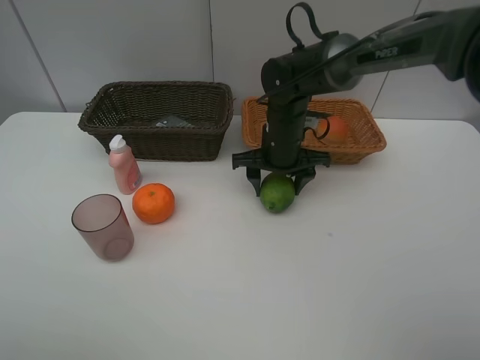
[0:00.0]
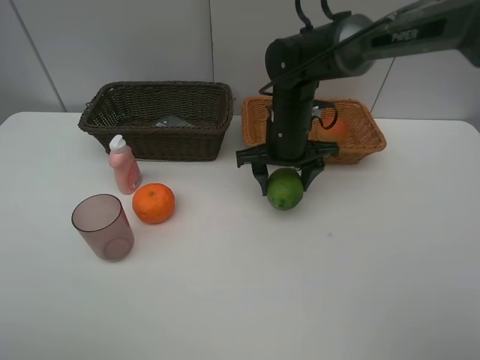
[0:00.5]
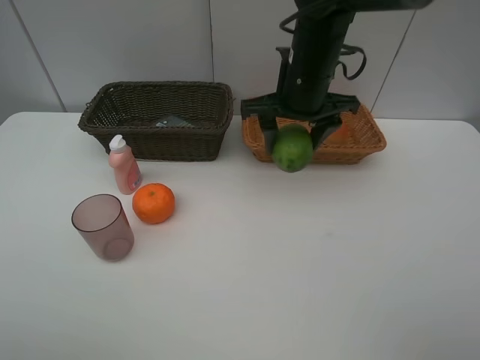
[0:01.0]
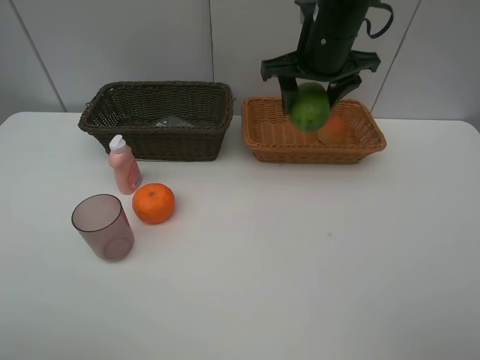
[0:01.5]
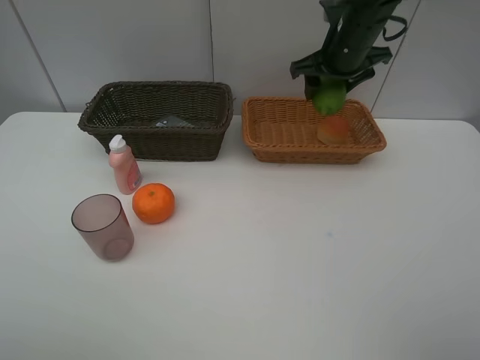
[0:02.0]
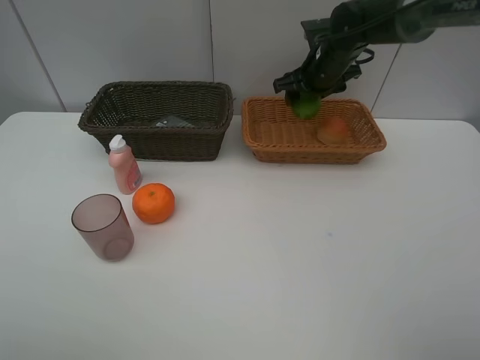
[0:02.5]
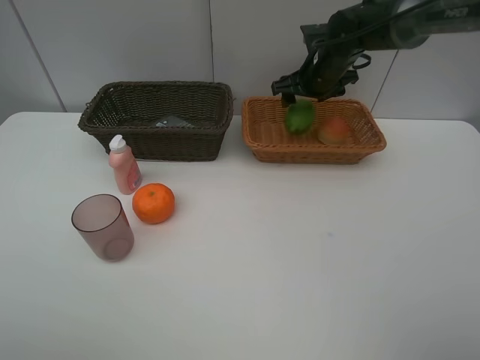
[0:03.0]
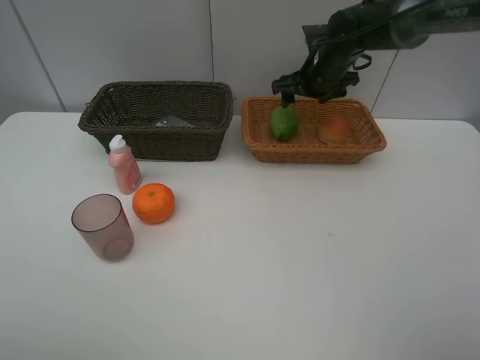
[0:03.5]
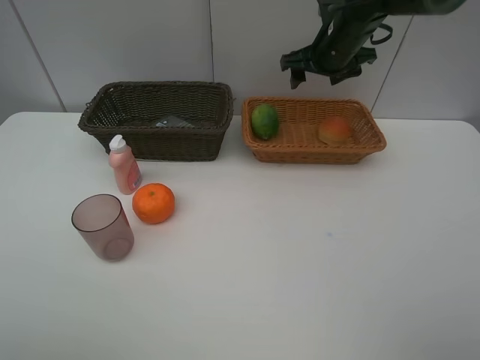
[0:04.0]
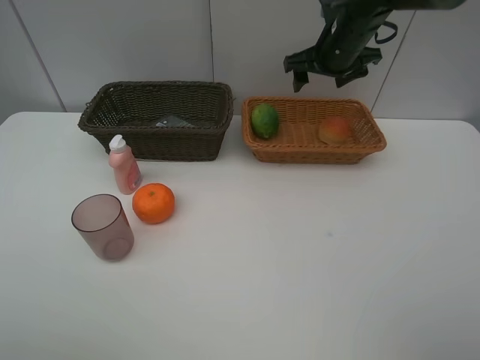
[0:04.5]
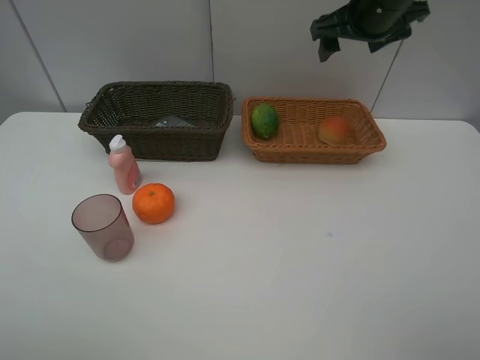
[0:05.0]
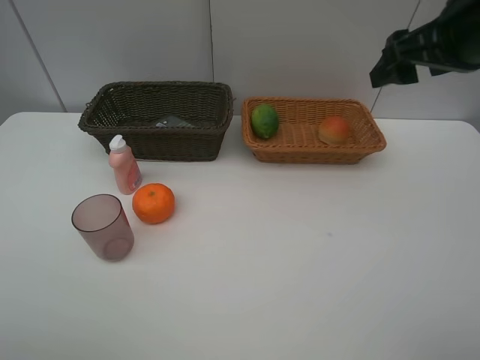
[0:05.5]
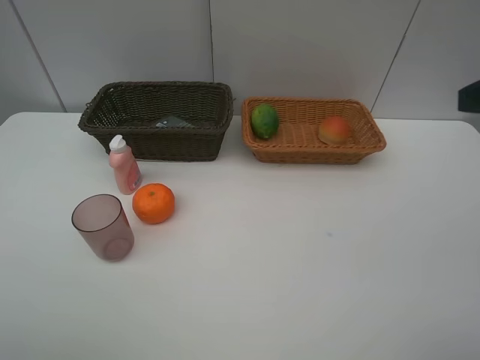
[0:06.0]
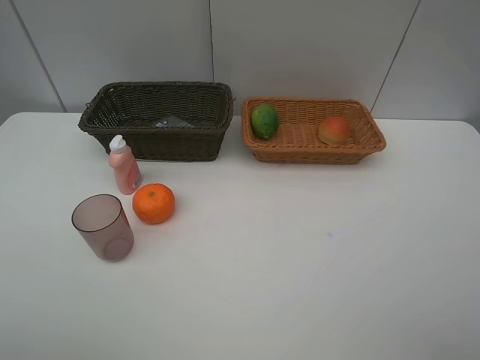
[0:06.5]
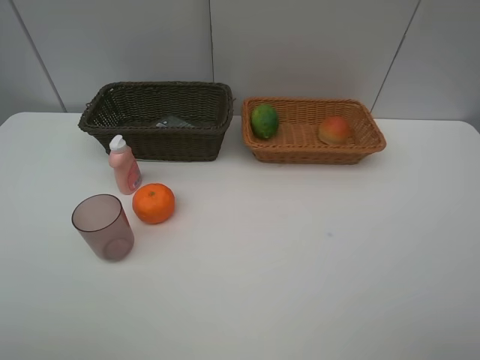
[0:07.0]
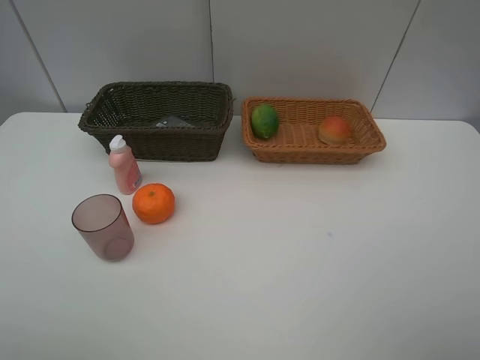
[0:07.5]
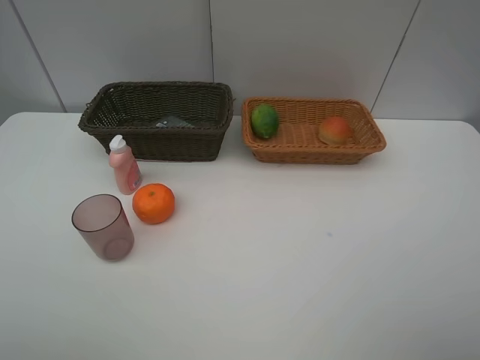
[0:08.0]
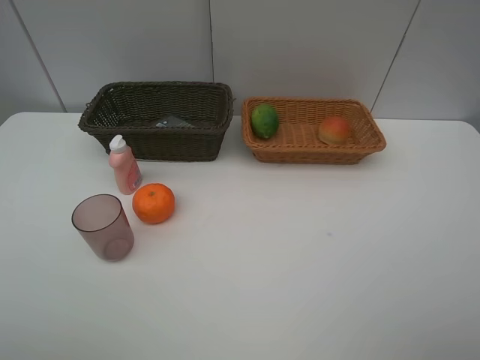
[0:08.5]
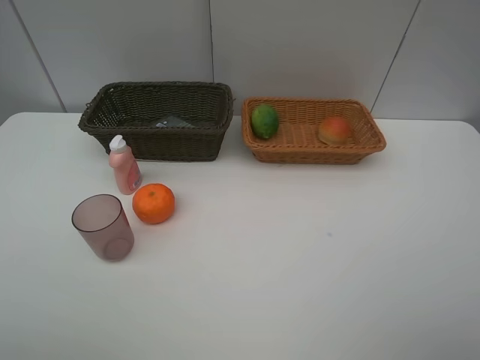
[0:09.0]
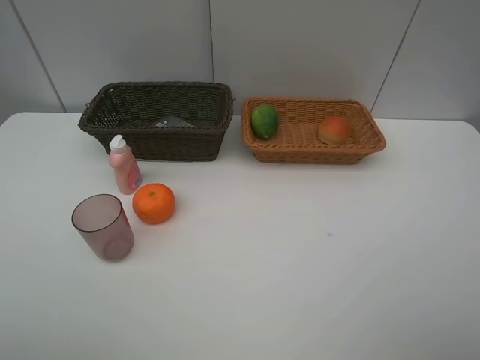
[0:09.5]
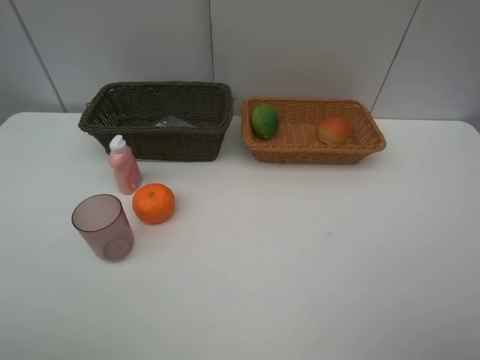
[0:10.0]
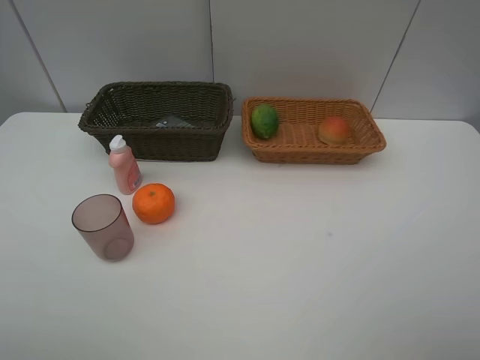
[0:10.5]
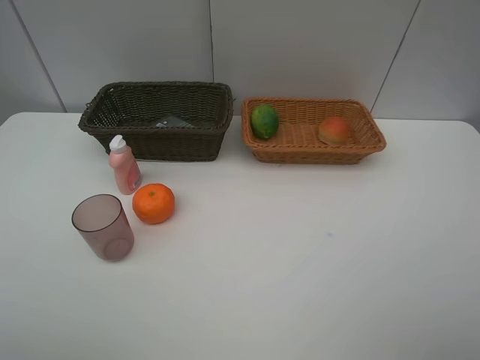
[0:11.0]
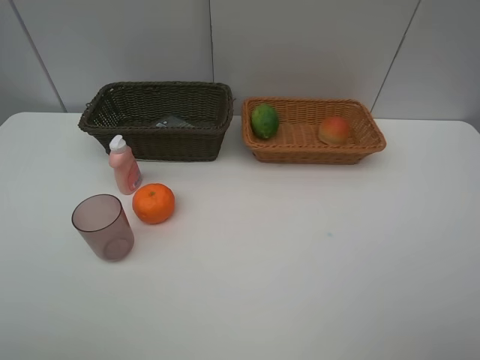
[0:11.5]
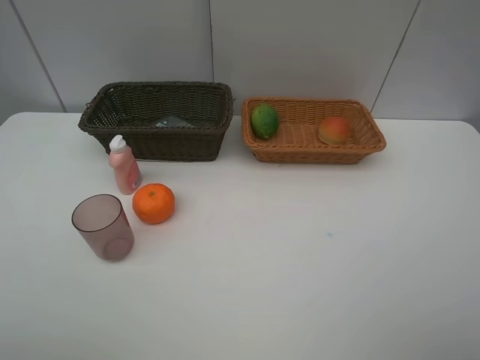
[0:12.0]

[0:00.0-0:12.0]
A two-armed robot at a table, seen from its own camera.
Task of the whole recording: place multiple objects separately in different baskets.
0:00.0 to 0:02.0: The right gripper travels upward, to the right and forward by some 15 cm.
0:04.0 to 0:06.0: The right gripper is displaced backward by about 30 cm.
0:10.0 to 0:12.0: Both grippers stay about where they are.

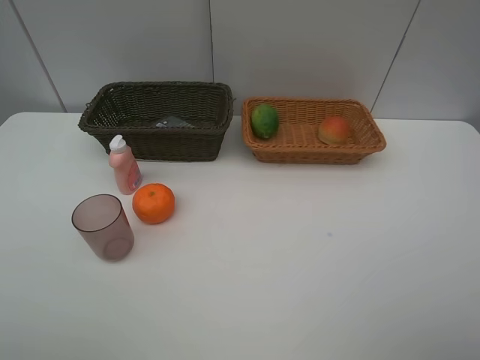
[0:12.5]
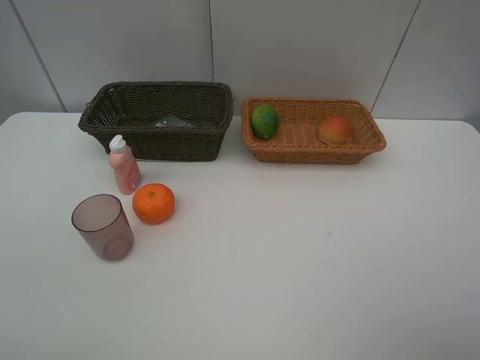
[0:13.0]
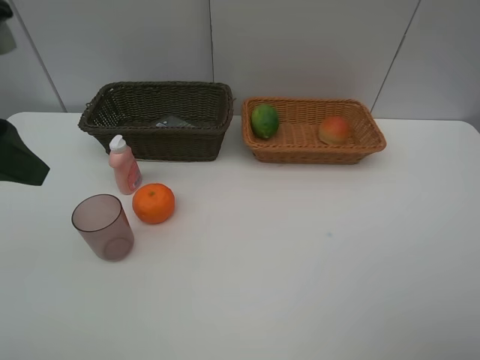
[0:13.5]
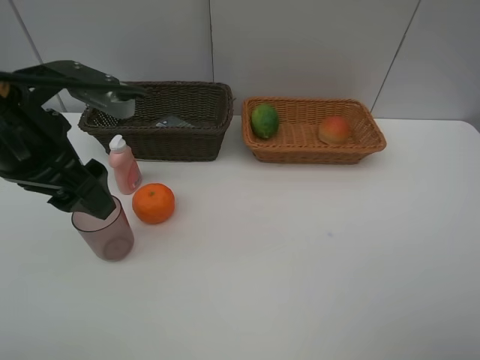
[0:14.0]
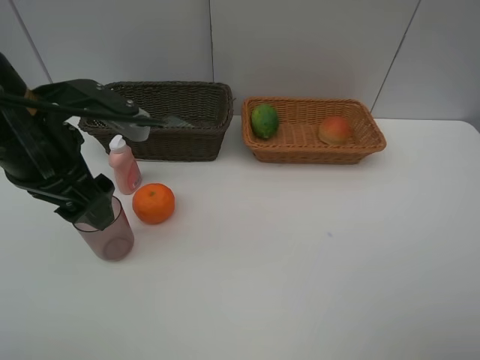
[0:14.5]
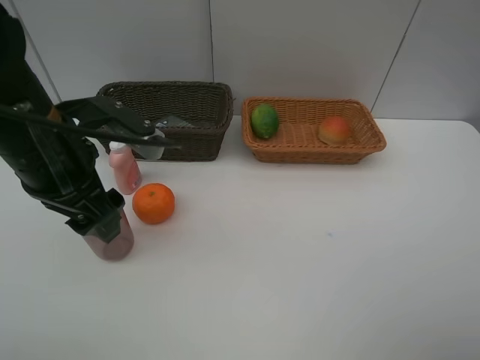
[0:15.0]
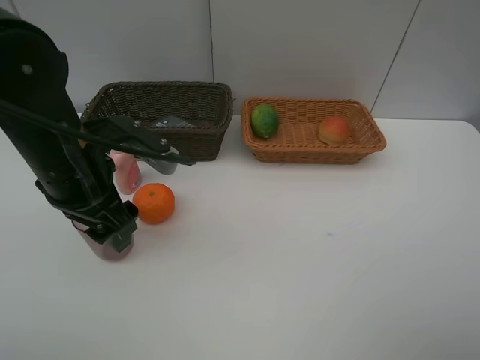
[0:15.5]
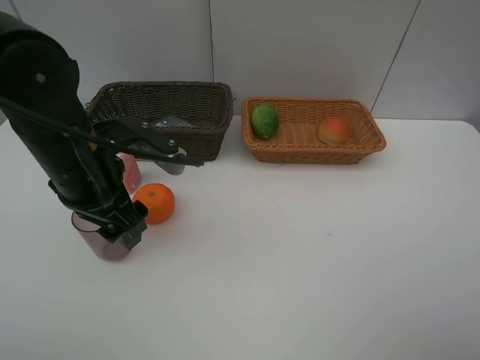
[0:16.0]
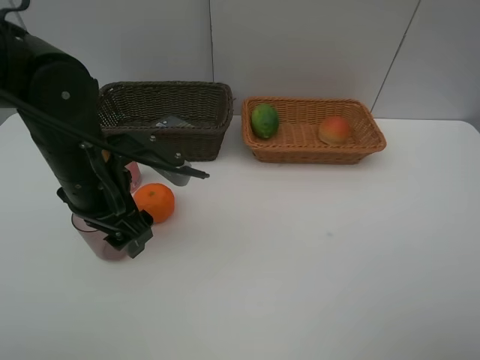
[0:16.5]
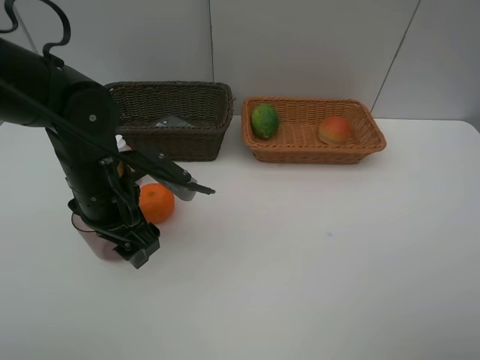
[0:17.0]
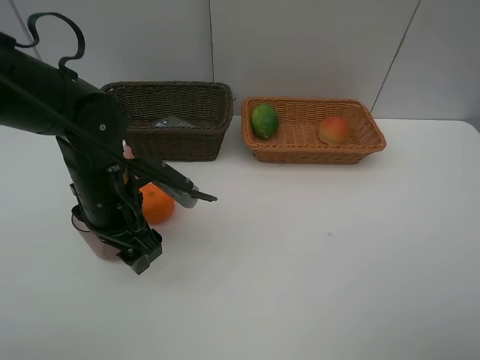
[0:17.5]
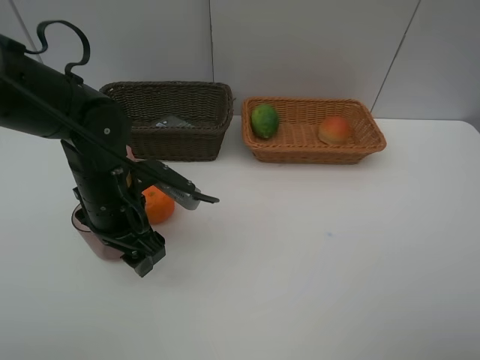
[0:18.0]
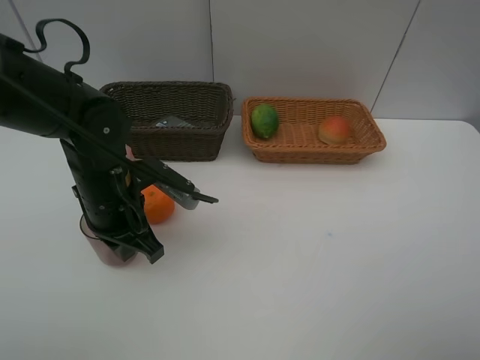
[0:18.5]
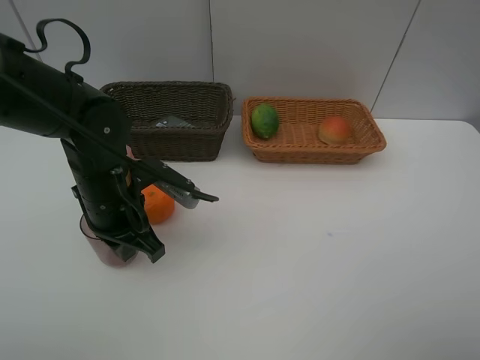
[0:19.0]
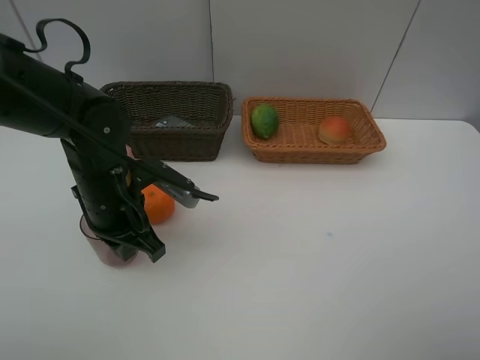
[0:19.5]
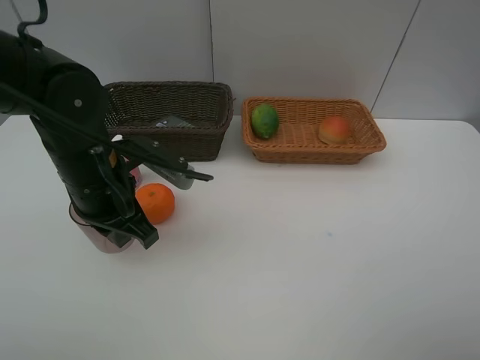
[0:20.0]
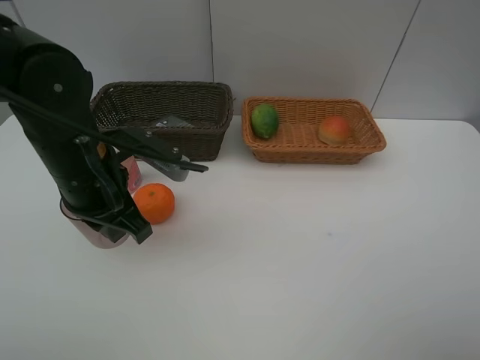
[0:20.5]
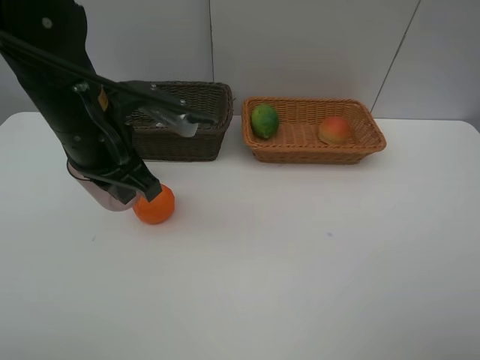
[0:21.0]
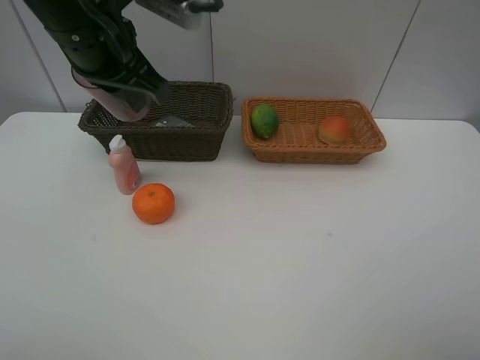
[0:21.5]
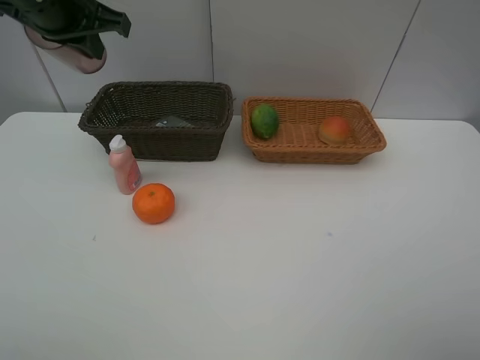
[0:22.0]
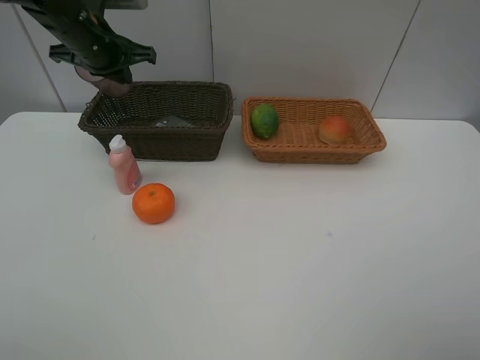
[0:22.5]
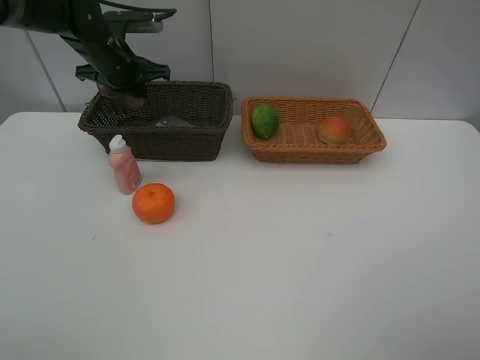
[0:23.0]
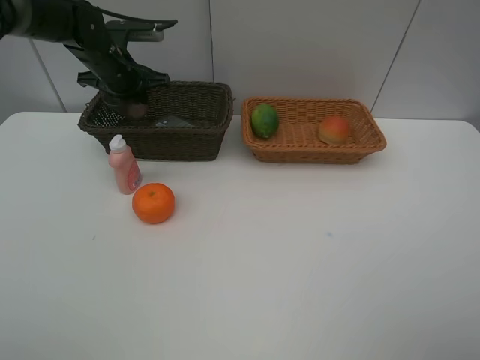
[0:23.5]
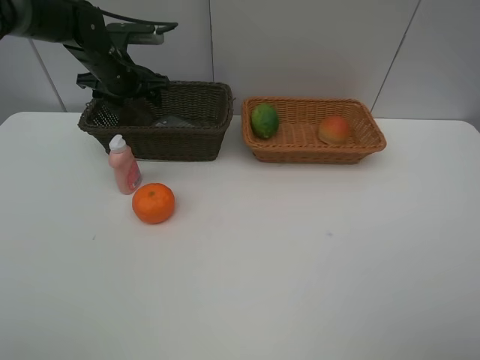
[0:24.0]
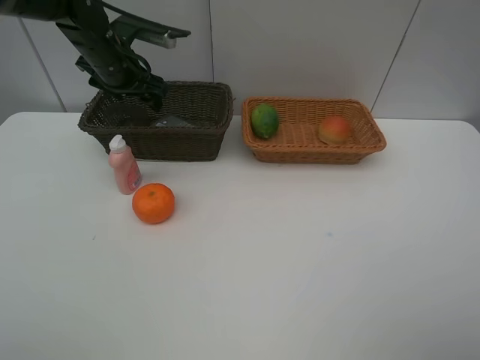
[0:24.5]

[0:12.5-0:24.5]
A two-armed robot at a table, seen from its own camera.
Task of the whole recording: place multiple objects separately in different baskets.
0:12.5 to 0:14.5: The left gripper heads forward, to the right and downward, covering roughly 25 cm.
0:14.5 to 0:16.5: The left gripper goes approximately 5 cm downward.
0:16.5 to 0:18.5: The left gripper closes up.
0:18.5 to 0:20.5: The left gripper is displaced upward by roughly 5 cm.
0:20.5 to 0:22.5: The left gripper is displaced forward by roughly 20 cm.
0:22.5 to 0:24.5: The left gripper opens.

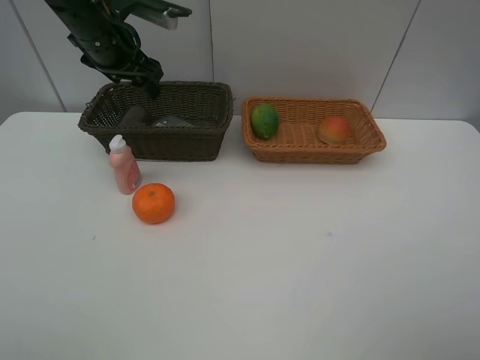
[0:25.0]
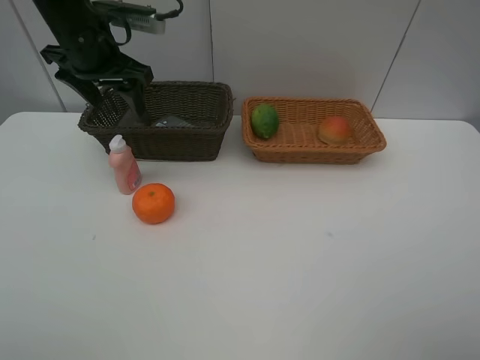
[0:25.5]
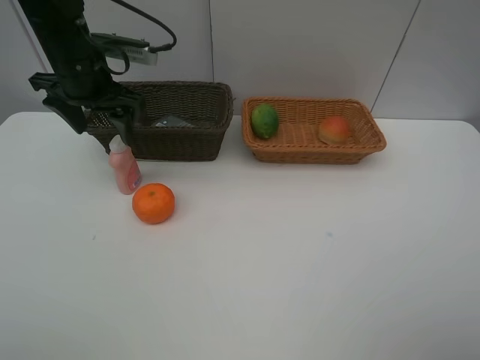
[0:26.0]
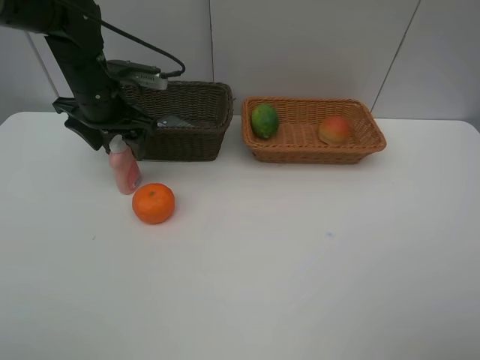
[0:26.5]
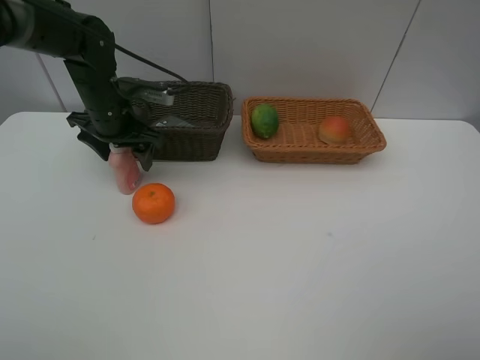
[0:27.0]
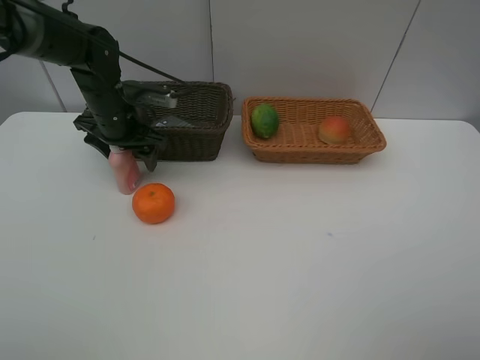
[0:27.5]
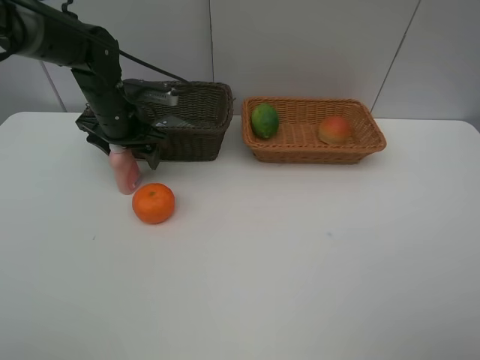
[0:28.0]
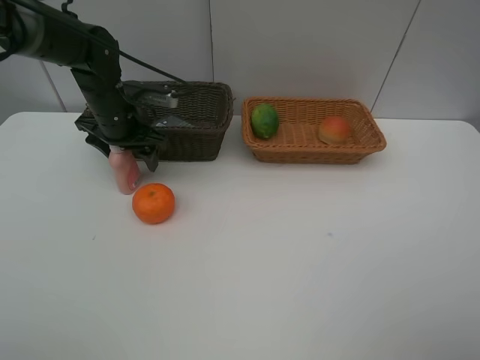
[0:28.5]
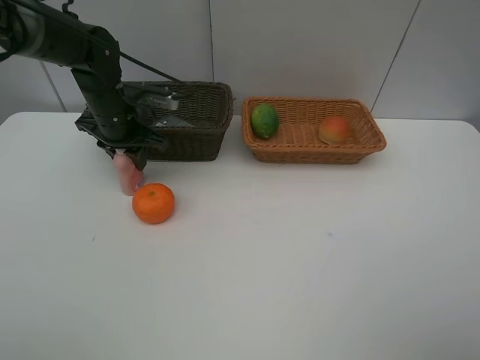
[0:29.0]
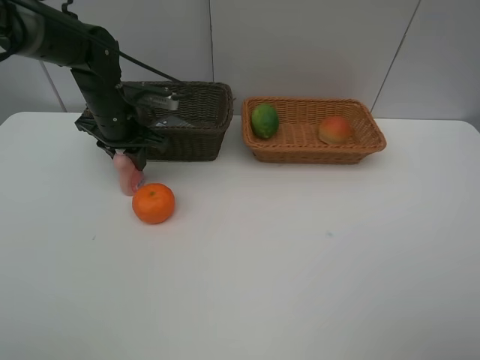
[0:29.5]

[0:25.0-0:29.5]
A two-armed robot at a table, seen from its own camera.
Task of the whole recording: place multiple objects separately in different baskets.
0:25.0 to 0:27.0: The left gripper heads downward, covering some 10 cm.
0:27.0 to 0:29.5: The left gripper closes up.
